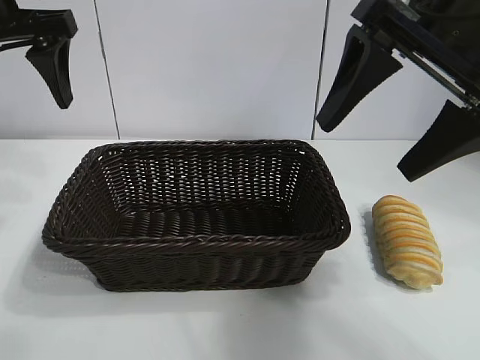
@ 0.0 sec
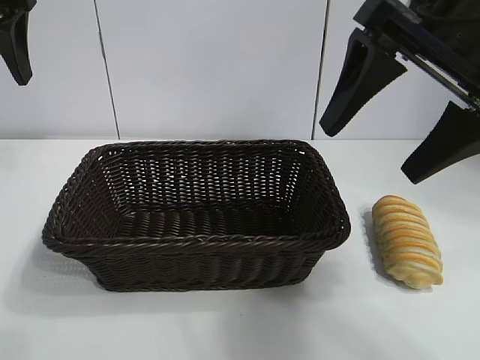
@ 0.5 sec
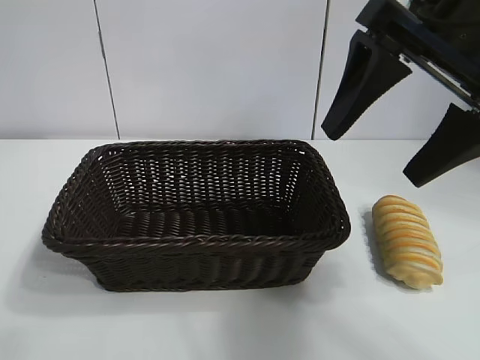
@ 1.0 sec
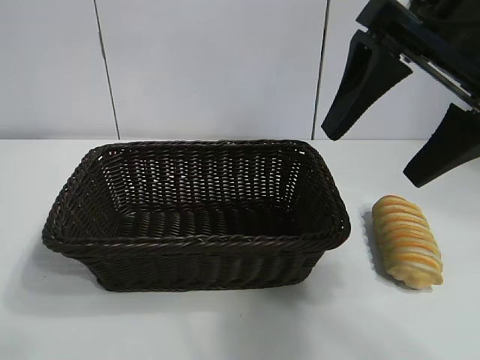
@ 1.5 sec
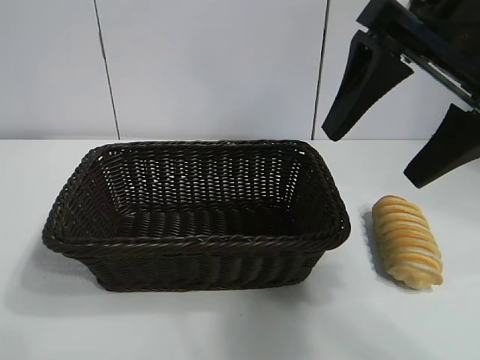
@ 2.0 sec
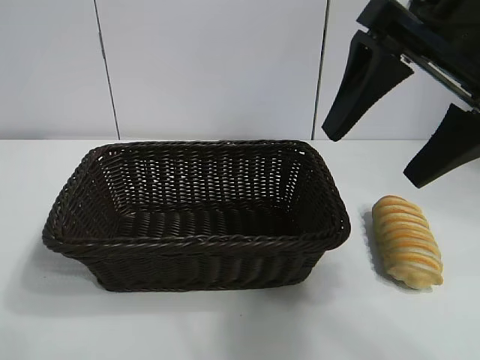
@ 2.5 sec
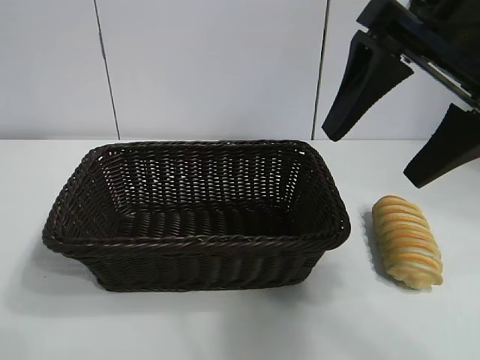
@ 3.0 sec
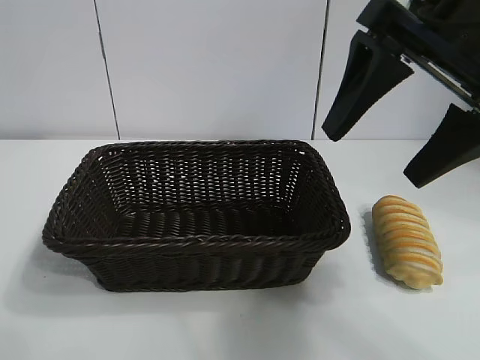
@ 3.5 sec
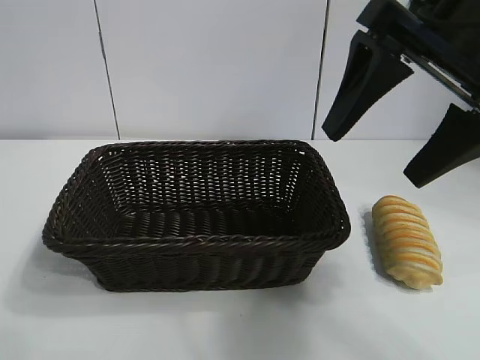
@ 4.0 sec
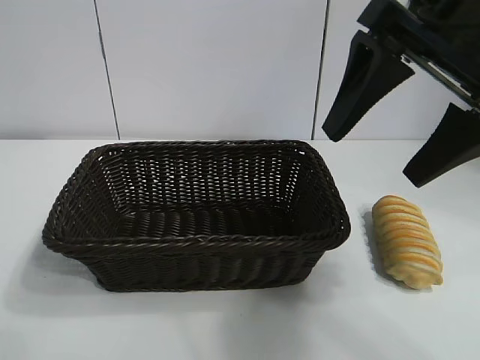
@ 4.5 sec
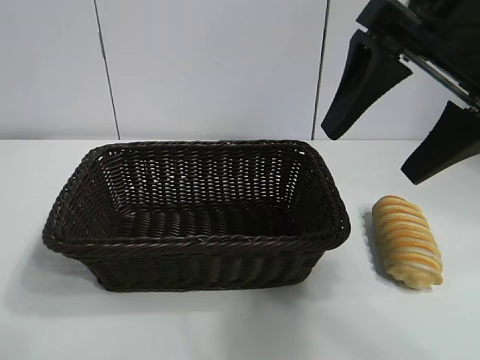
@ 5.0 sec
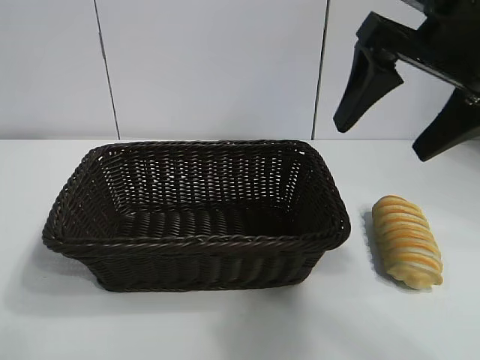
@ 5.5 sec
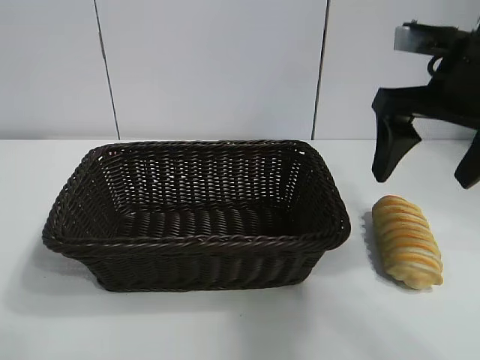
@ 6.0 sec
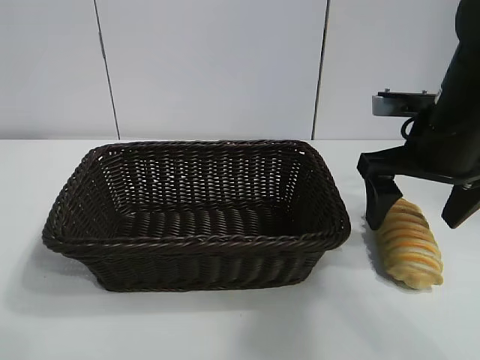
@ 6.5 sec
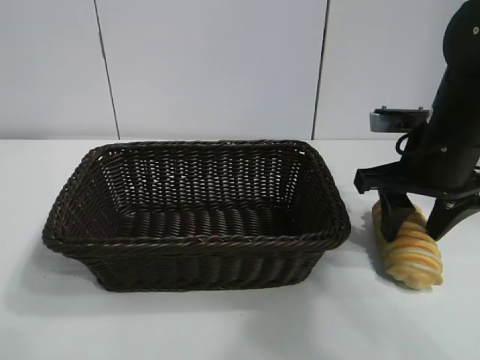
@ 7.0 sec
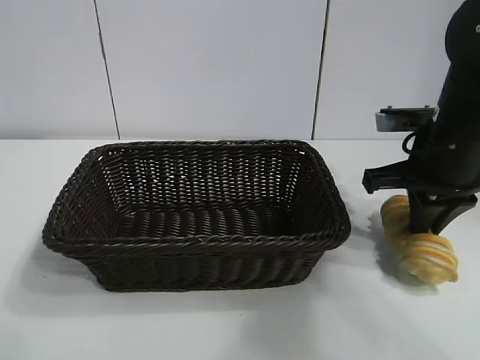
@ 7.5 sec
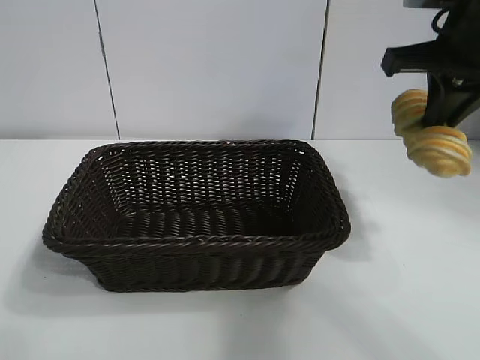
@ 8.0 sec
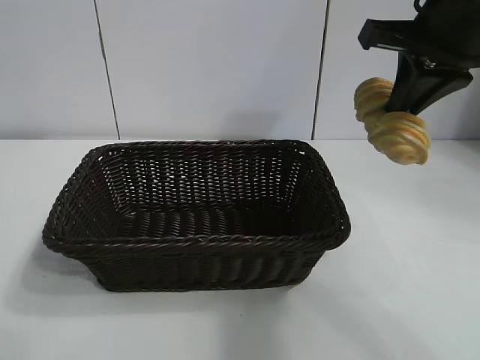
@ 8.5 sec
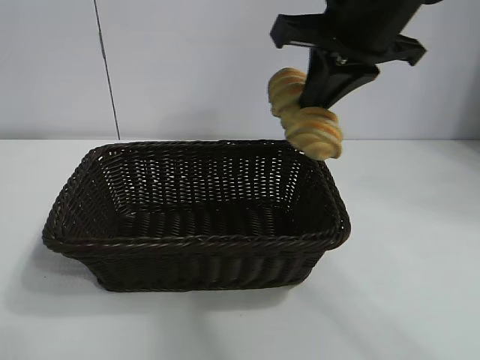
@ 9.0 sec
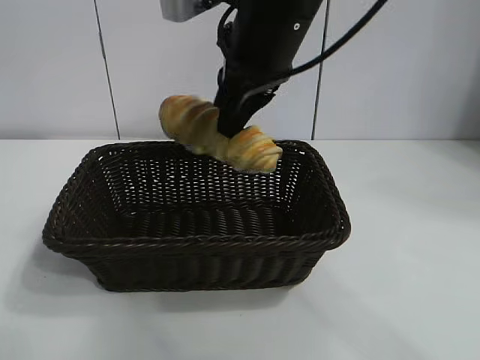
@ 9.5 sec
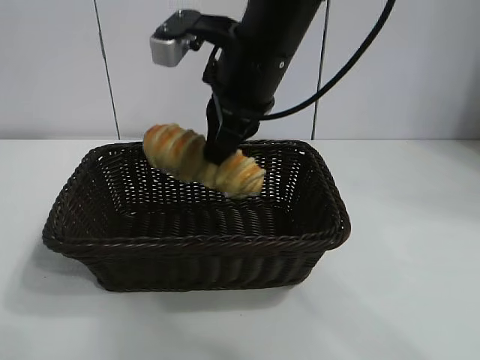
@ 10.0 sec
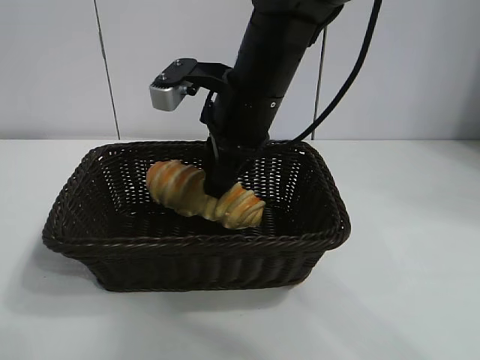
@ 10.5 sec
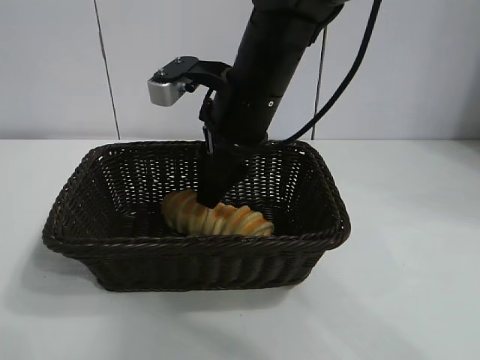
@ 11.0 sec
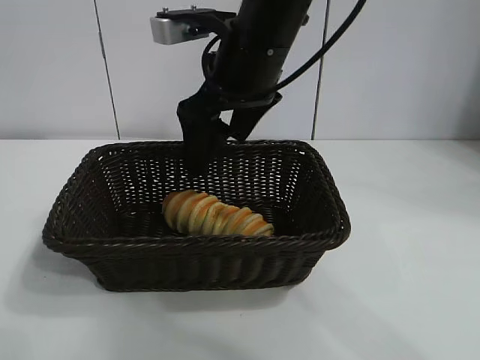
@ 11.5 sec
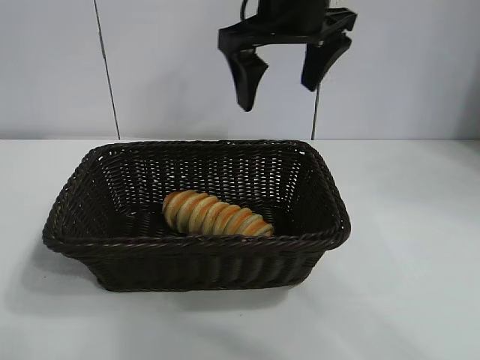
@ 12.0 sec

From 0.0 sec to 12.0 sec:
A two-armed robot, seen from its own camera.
Task of the whole recording: pick up the long bread and put it into the basket.
Step, from 0.0 sec to 7.0 sec: Grasp the long bread with right gripper.
Step, from 7.5 sec to 11.0 sec: Place the long bread in the basket with right gripper.
